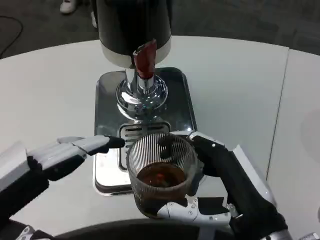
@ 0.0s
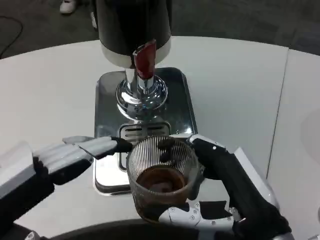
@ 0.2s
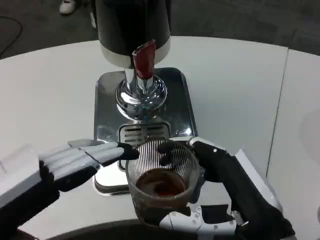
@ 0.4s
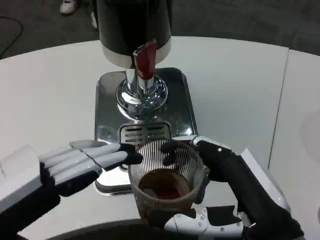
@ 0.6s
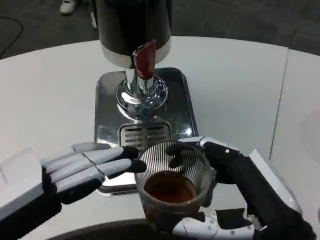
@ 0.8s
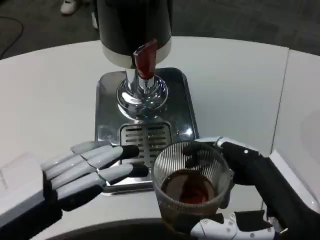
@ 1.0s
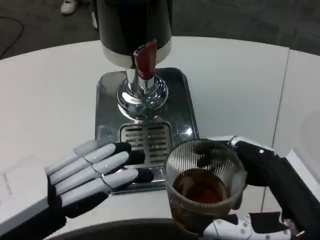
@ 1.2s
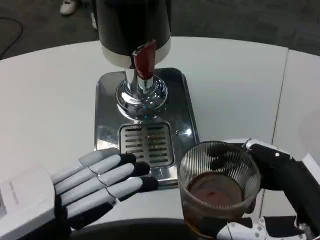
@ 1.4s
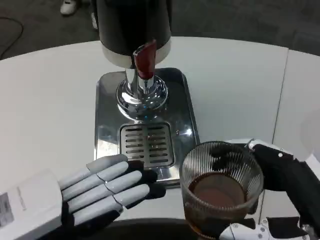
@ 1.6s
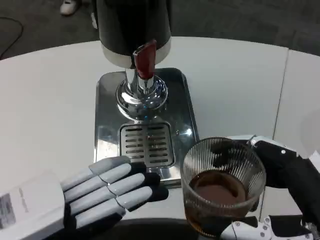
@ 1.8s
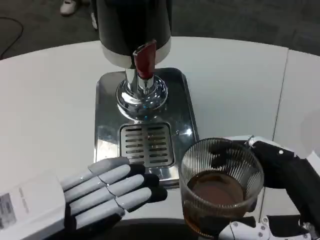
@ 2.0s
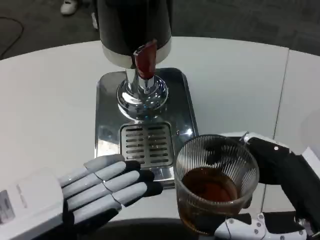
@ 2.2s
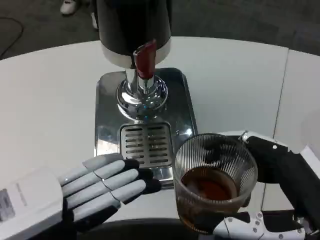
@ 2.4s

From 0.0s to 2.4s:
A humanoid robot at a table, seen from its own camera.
Task of the whole recording: Grasp the cup under the faucet to collect the drink, then remove the cup.
From 0.0s to 1.2s: The right hand moves to the right, about 5 cm.

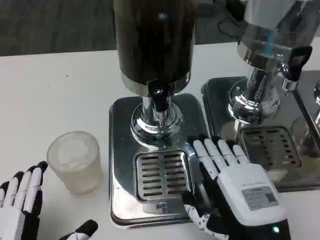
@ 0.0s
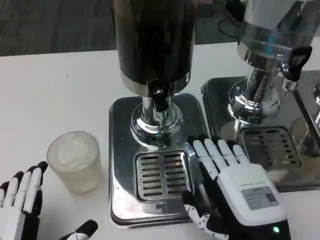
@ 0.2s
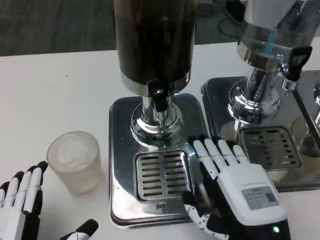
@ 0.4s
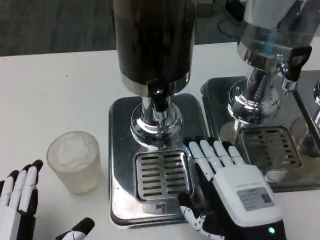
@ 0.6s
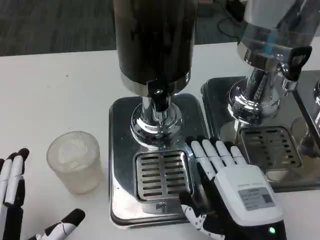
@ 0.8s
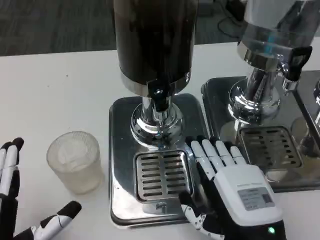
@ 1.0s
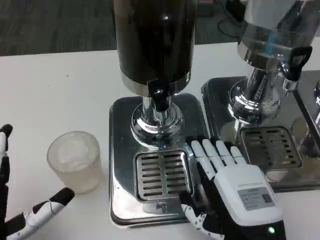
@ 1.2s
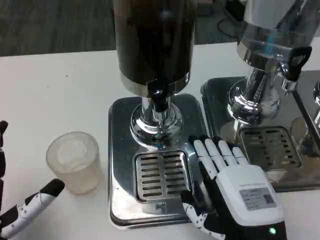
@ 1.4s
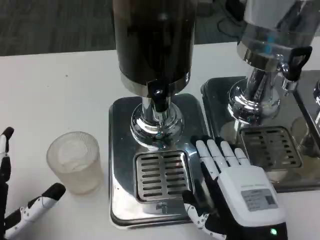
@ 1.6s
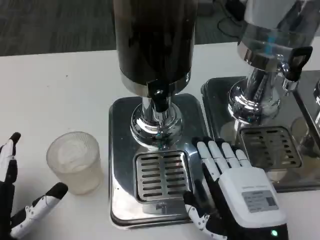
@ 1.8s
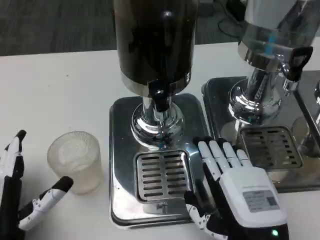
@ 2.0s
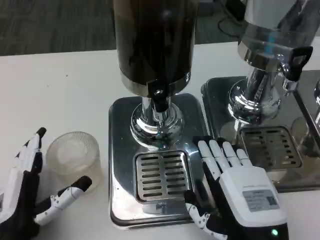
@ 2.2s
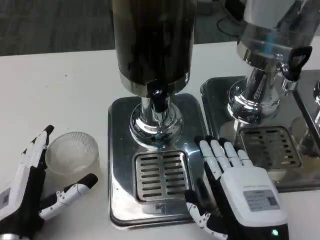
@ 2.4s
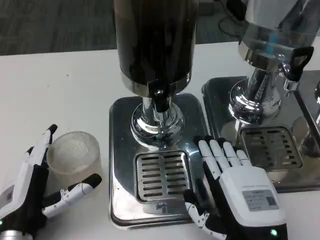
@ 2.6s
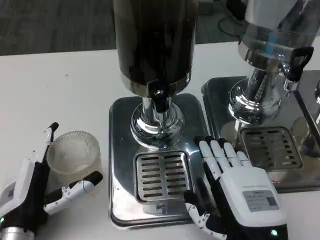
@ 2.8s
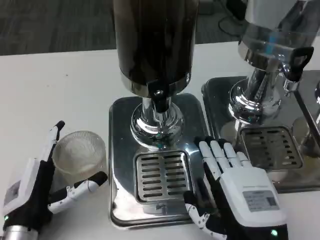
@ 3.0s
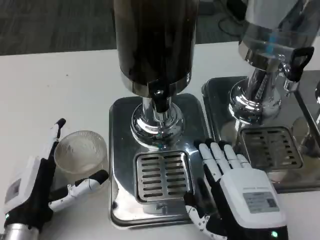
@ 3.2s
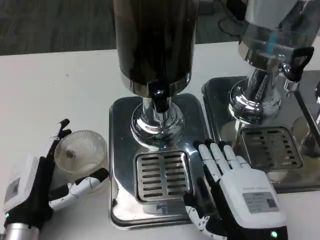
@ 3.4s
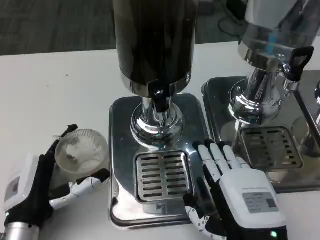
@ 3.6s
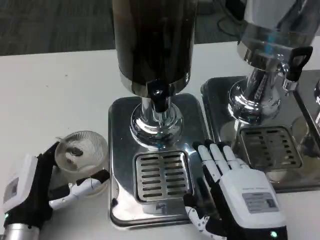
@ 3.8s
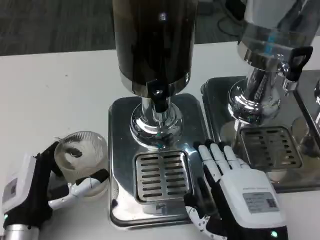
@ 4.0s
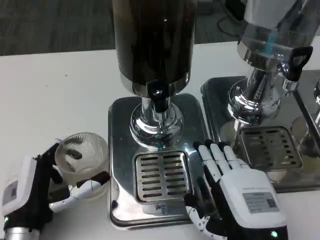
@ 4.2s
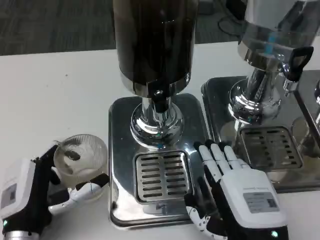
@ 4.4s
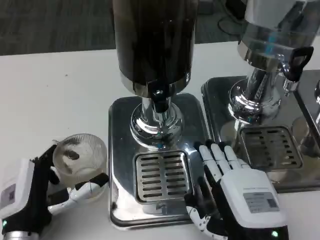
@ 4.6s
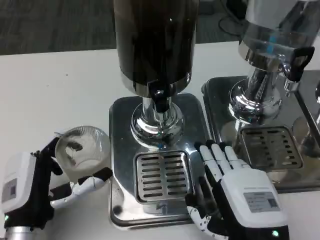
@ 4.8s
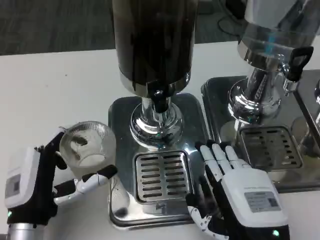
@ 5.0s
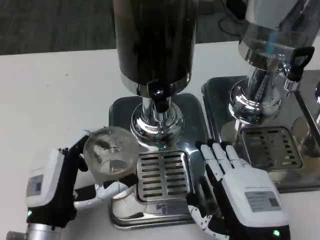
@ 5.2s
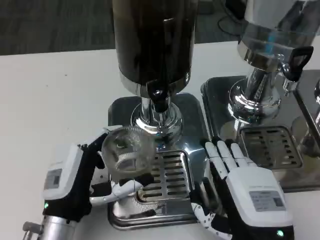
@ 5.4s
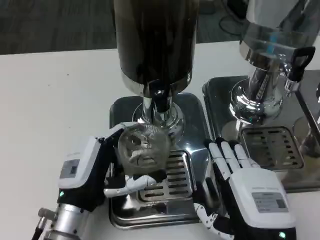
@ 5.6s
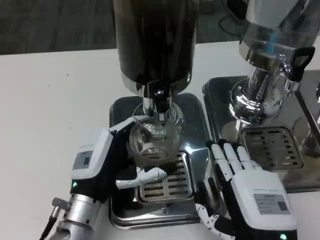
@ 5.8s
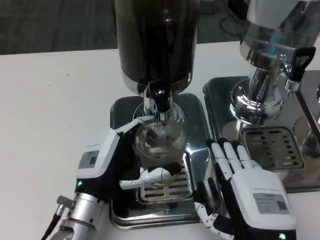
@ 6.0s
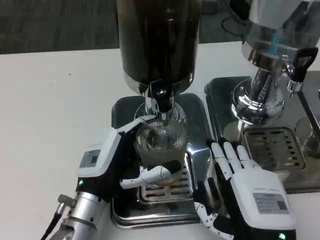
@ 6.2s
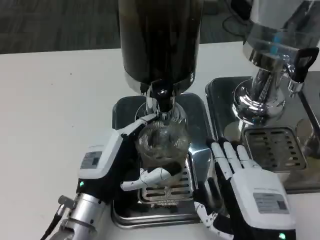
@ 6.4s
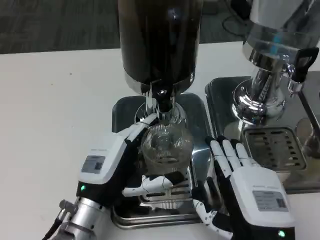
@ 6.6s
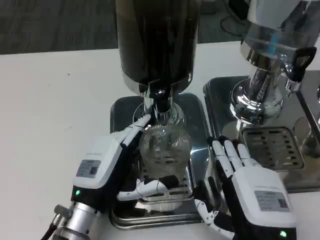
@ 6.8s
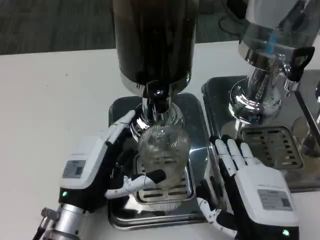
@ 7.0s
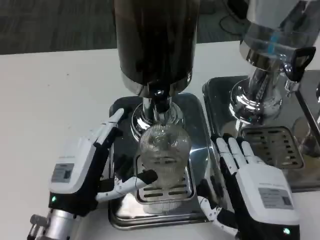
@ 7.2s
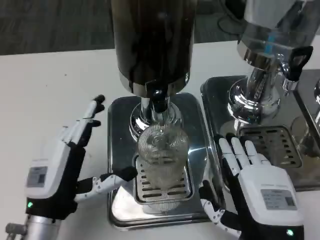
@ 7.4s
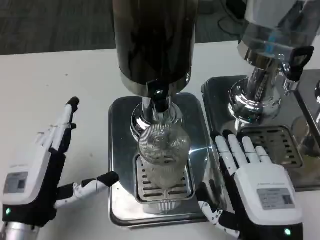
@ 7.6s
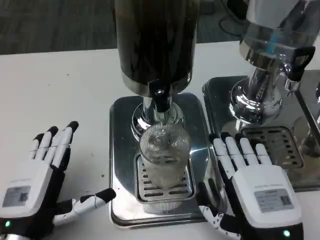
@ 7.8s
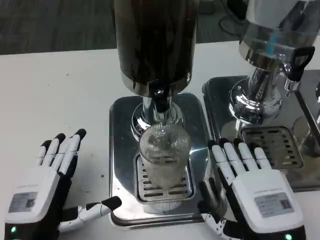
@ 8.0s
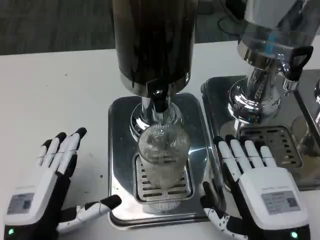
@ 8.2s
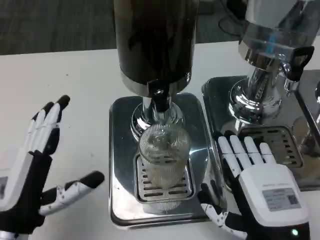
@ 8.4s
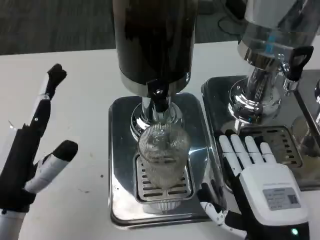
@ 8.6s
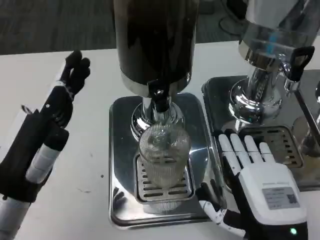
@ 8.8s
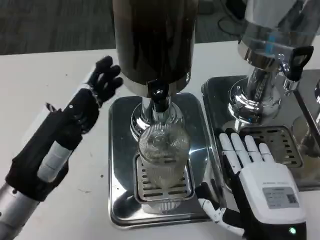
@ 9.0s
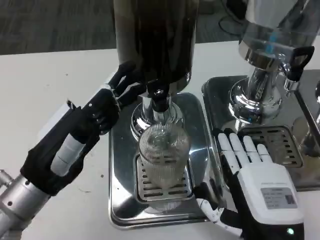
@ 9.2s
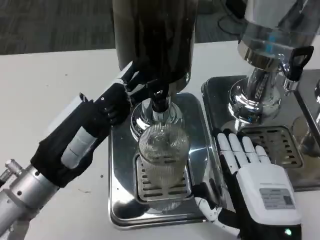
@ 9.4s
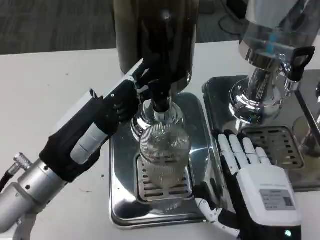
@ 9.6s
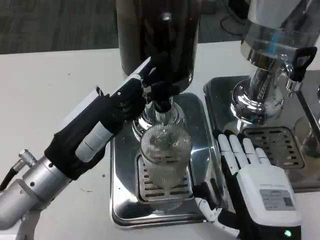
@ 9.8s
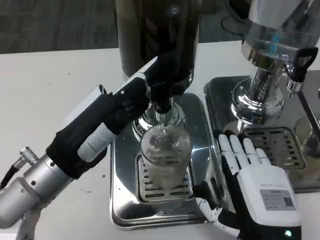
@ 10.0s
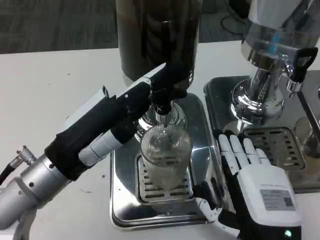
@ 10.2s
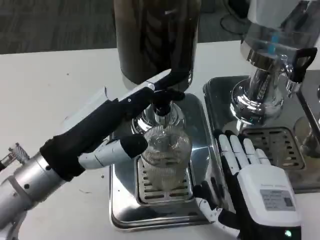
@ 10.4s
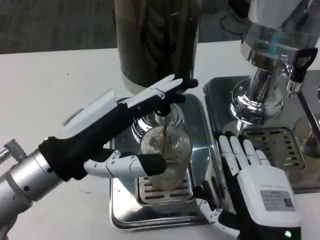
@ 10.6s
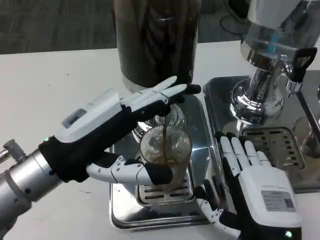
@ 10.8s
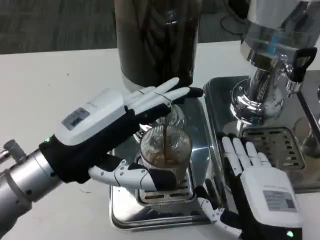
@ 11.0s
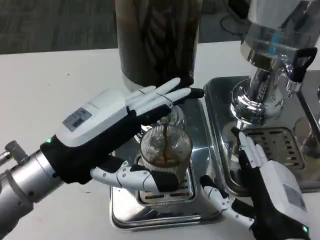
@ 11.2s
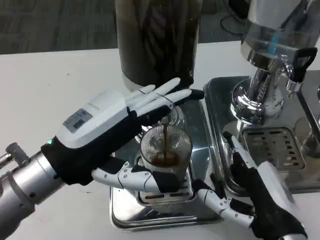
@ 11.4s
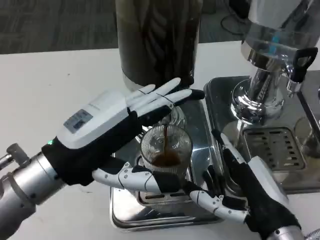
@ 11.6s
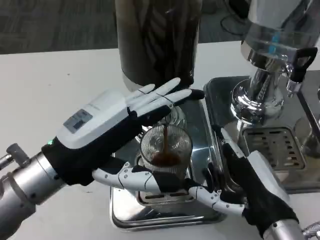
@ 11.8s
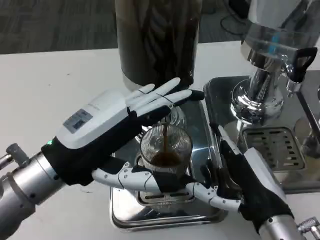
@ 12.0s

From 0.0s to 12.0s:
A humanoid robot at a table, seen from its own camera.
Task of the whole recording: Grasp the cup under the faucet to collect the drink, then remove the cup.
From 0.0s to 1.6s: The left hand ends up about 5 cm from where it was.
From 1.6s to 3.0s: The left hand heads forward, covering some 5 cm.
From 3.0s to 4.4s: The hands stay close to where they were, moving slightly.
From 4.4s to 6.0s: The left hand travels to the right and forward by approximately 10 cm.
From 6.0s to 7.6s: The left hand goes about 10 cm to the left and backward.
From 7.6s to 9.0s: The left hand shifts approximately 10 cm upward.
From 9.0s to 10.4s: The left hand ends up some 5 cm from where it was.

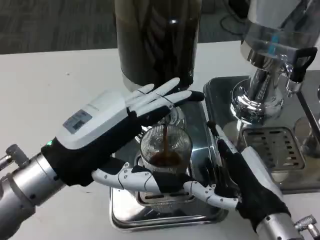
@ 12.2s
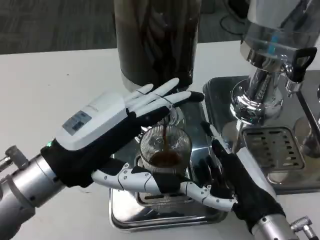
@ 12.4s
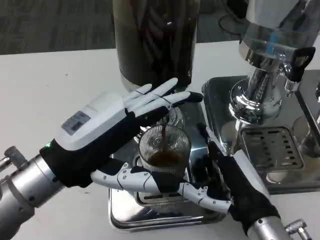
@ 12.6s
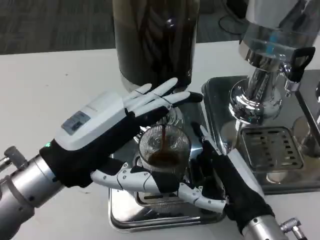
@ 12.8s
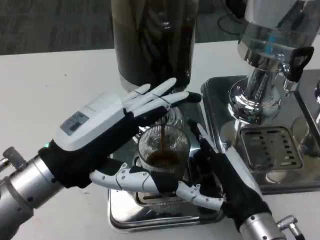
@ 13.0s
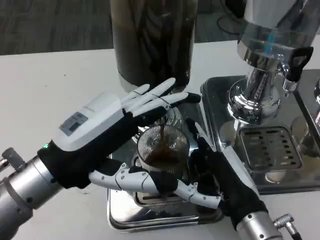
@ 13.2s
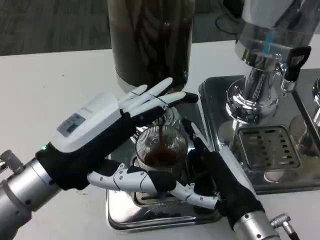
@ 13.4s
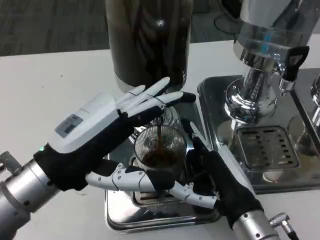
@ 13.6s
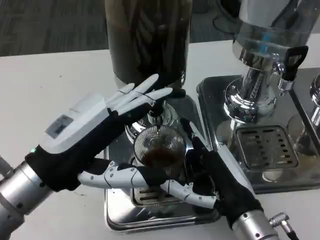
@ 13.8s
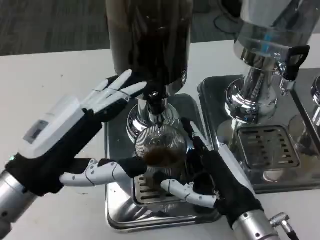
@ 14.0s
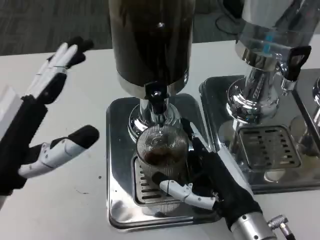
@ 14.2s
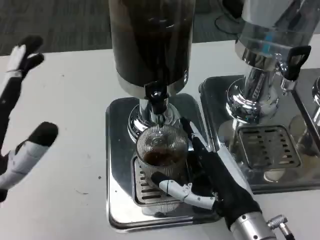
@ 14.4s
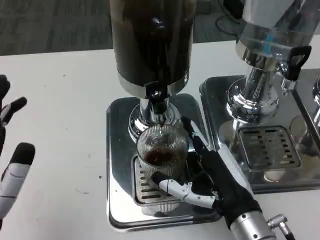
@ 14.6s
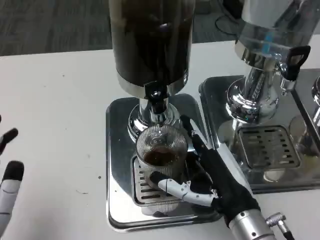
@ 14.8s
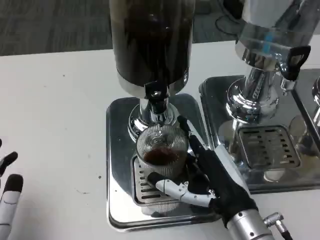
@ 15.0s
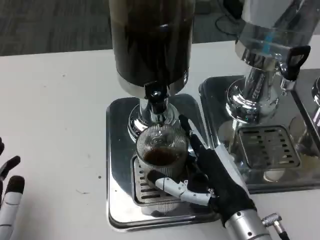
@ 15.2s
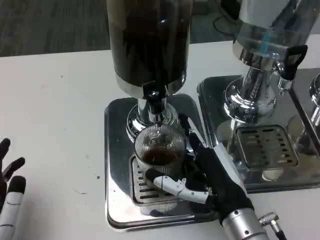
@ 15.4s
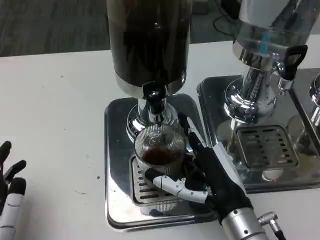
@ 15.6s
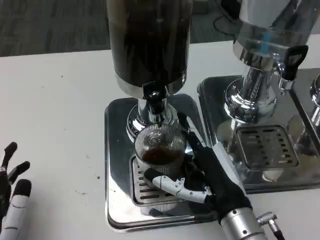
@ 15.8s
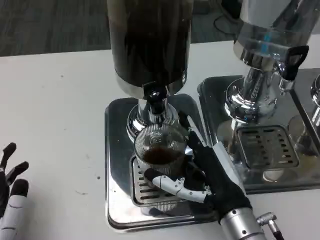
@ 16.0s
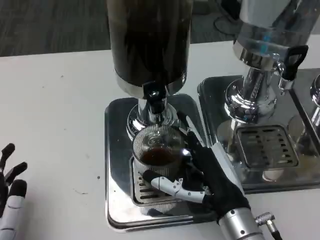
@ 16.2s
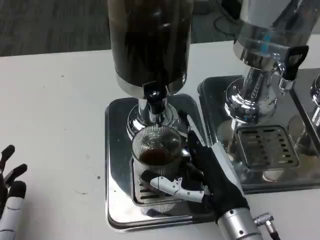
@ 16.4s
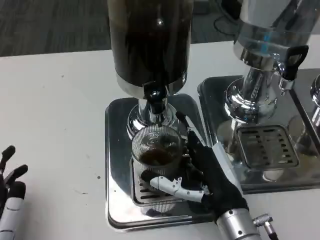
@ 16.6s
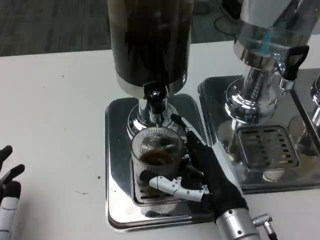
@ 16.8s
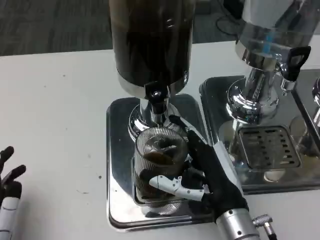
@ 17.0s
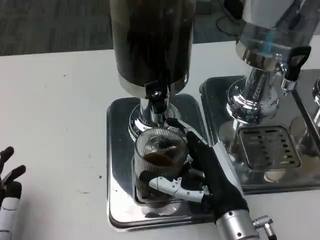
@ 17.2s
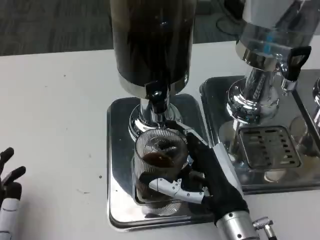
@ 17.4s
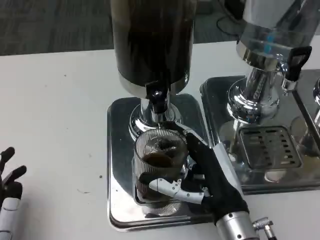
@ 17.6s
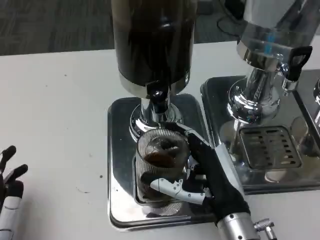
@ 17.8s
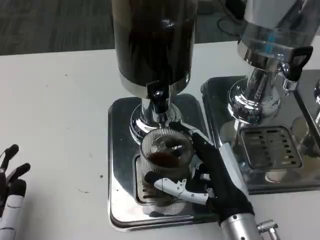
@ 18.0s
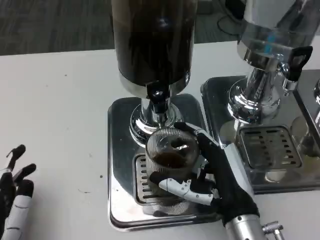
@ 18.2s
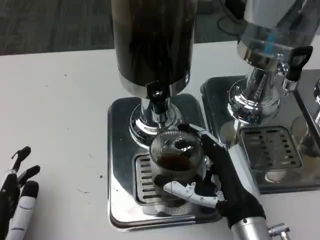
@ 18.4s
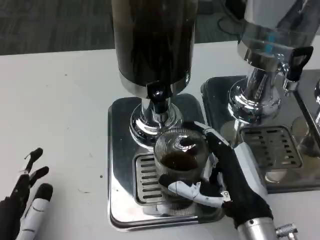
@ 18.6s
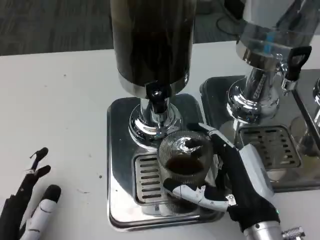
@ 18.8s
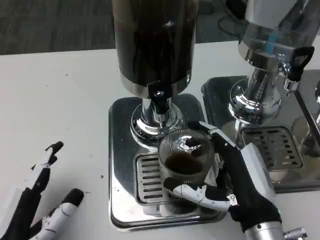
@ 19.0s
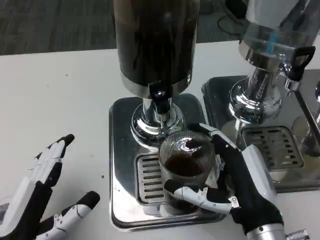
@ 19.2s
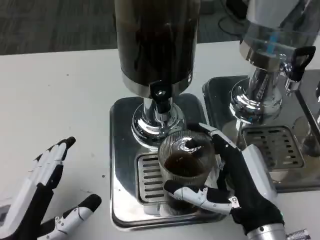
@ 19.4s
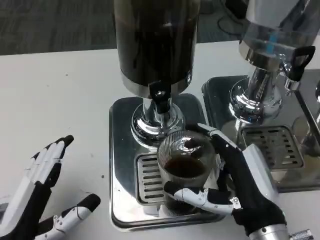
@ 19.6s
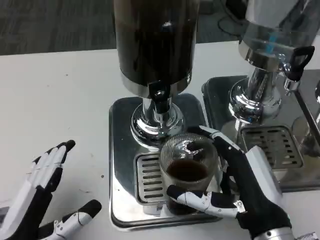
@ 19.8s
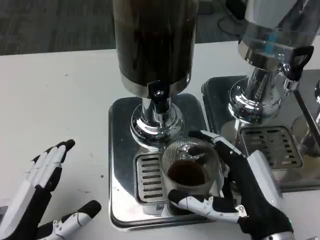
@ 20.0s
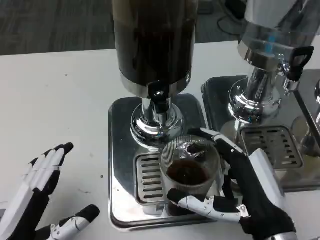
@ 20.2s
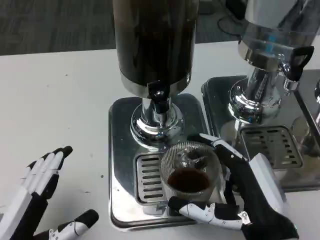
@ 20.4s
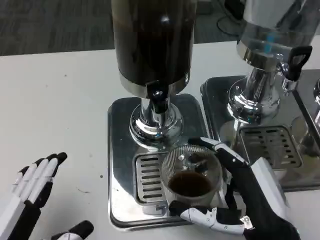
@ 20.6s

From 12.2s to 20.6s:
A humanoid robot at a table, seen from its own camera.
Task of the whole recording: Grasp the cup under the faucet to collect the drink, then remove the cup.
From 13.6s to 15.0s: The left hand shifts approximately 15 cm downward and backward.
From 15.0s to 17.8s: The hands make only small movements.
